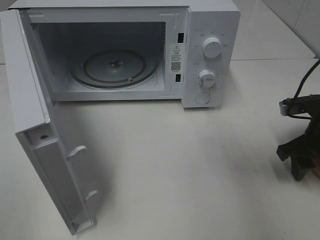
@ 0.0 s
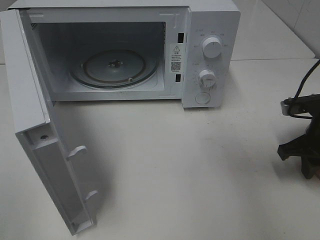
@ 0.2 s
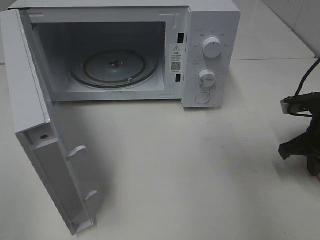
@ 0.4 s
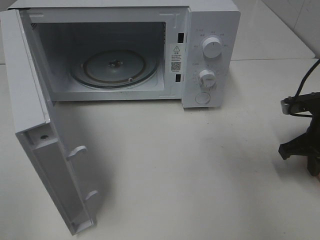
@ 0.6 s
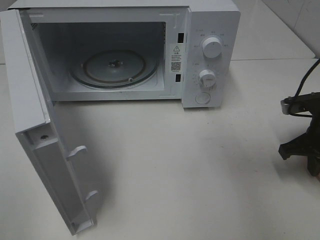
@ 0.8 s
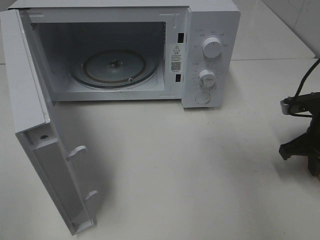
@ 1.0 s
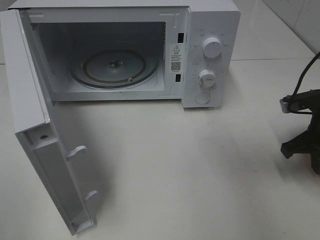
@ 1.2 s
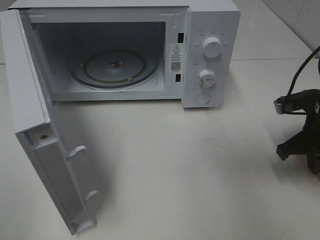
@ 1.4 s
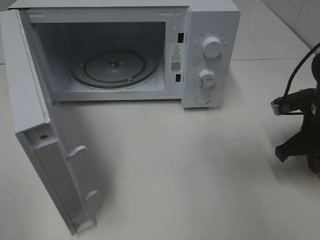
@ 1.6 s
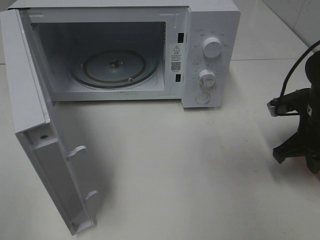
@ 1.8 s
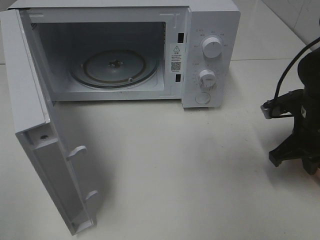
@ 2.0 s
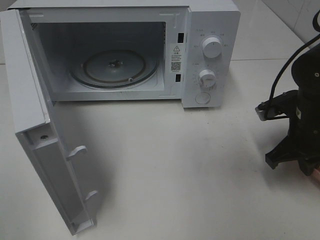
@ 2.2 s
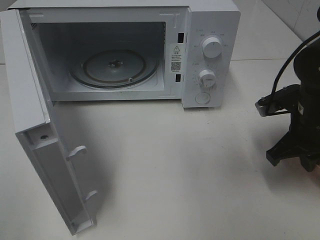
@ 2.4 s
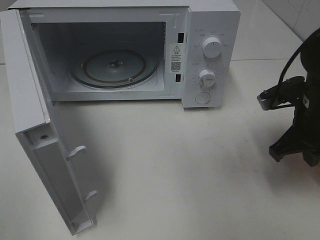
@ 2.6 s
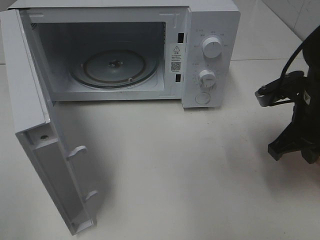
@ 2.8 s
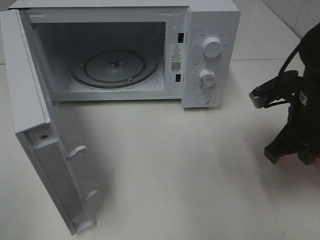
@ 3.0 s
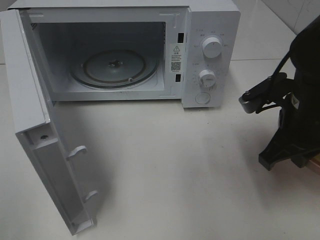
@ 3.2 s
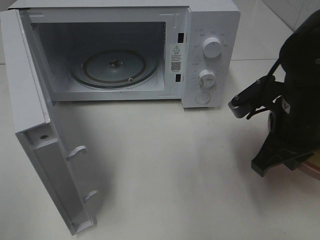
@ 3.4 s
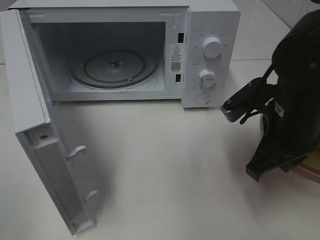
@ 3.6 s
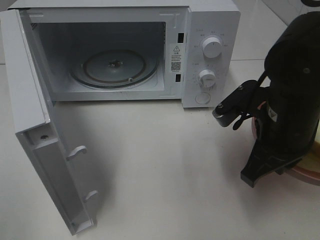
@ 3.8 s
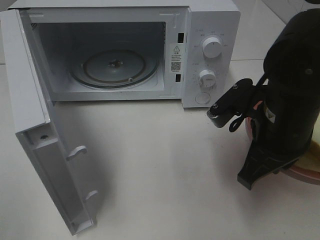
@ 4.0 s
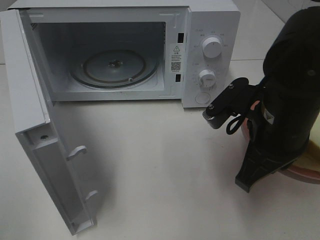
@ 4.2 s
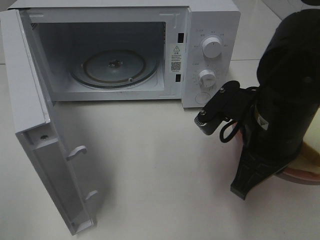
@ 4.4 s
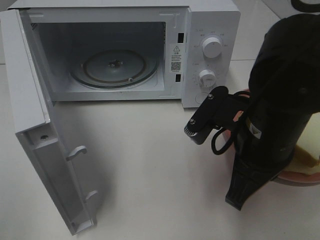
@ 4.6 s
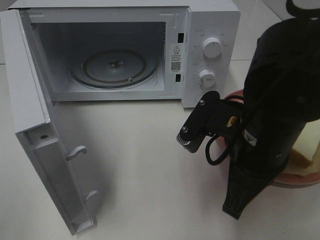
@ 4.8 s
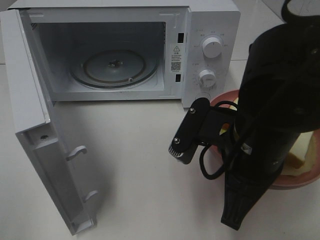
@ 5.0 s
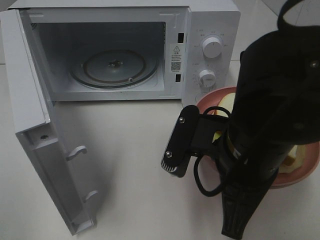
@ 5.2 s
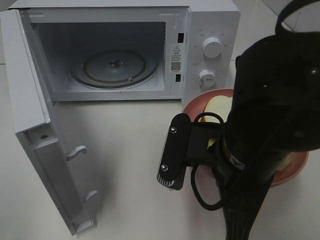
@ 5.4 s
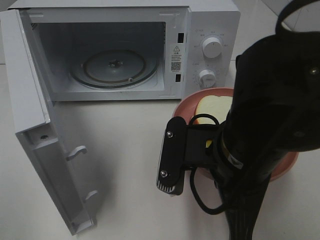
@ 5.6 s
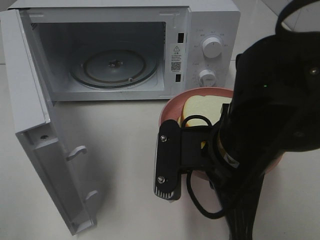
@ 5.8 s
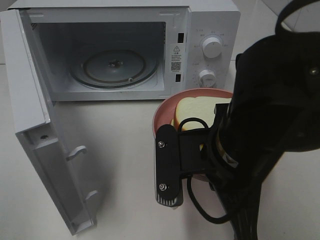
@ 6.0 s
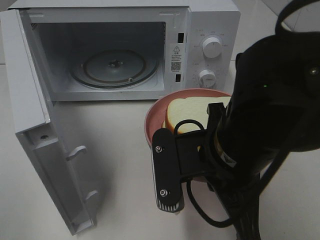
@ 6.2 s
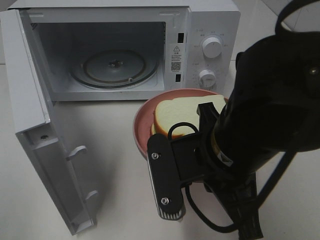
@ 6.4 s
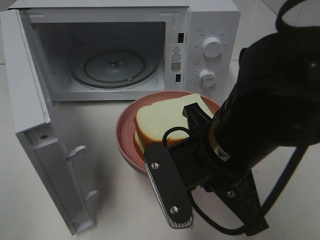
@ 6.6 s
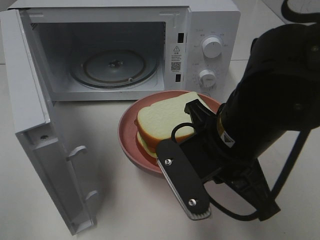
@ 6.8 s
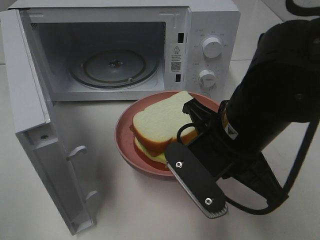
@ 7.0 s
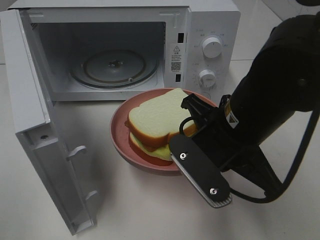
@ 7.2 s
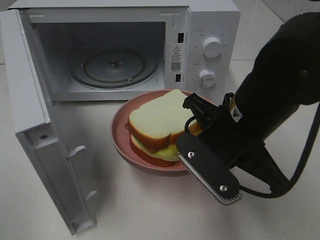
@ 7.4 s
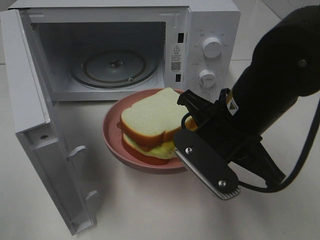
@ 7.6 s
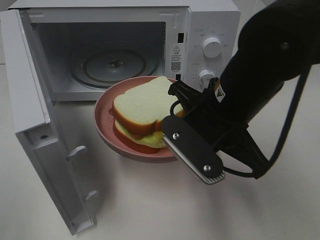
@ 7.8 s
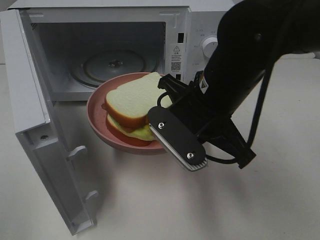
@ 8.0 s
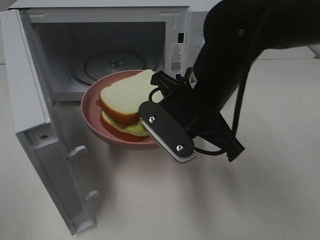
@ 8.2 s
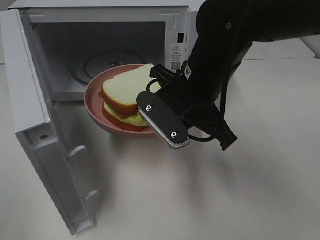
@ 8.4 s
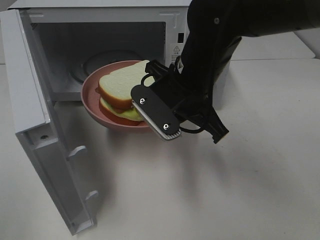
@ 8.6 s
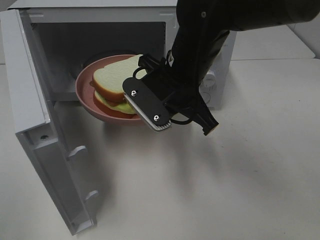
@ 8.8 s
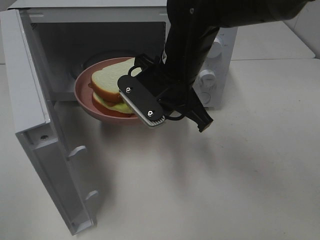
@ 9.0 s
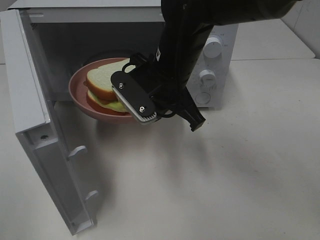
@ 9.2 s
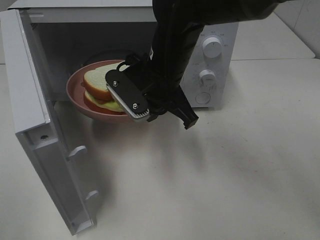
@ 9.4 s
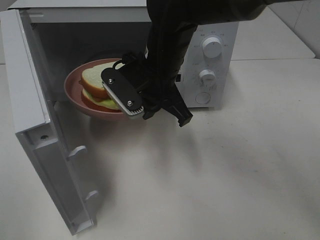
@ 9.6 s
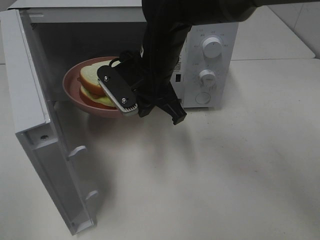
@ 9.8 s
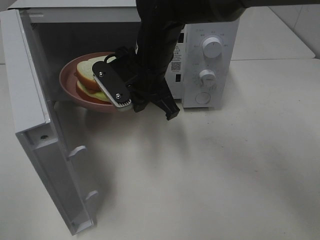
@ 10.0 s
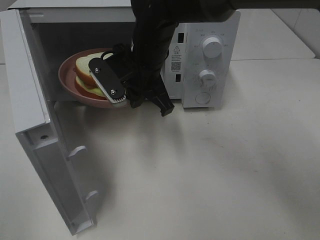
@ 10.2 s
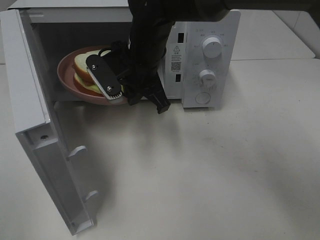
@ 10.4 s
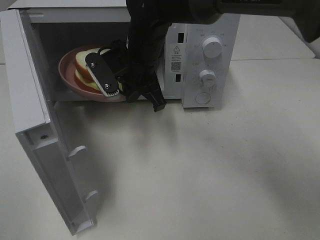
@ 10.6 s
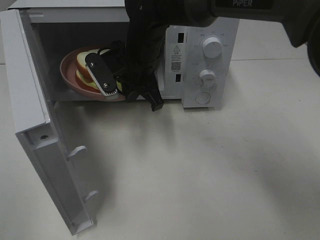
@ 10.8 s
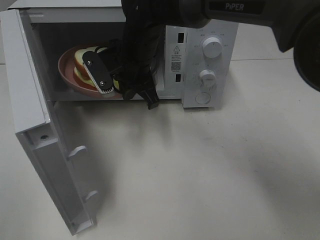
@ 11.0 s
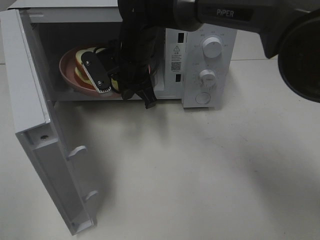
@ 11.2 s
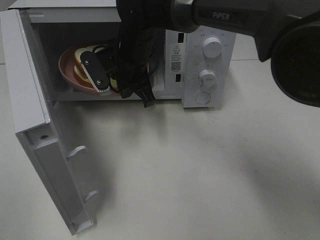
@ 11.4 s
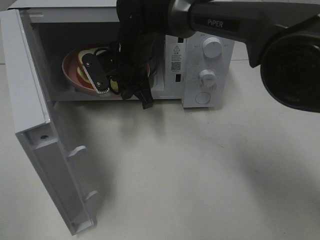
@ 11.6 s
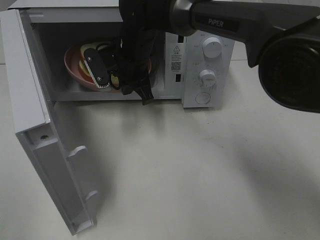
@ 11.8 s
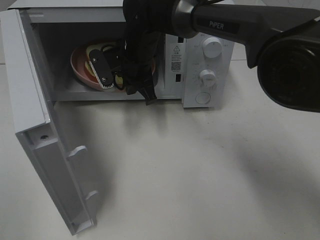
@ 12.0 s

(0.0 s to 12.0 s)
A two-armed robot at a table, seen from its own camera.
Task of the whole recording: Heat Sandwich.
0.0 s - 1.6 s: The right gripper closes up.
1.6 s - 3.0 s: The right gripper is displaced to the left and upward by some 10 cm.
3.0 s - 4.4 s: The right gripper travels to the left by roughly 10 cm.
4.4 s - 6.0 s: The right gripper travels to the left by approximately 5 cm.
6.0 s - 7.6 s: The right gripper heads forward, covering some 5 cm.
7.6 s - 9.0 s: The right gripper shifts some 10 cm forward and to the left.
9.0 s - 10.4 s: The right gripper heads forward and to the left, covering some 10 cm.
10.4 s - 12.0 s: The right gripper heads forward, covering about 5 cm.

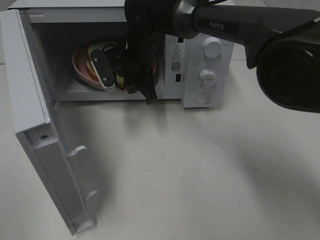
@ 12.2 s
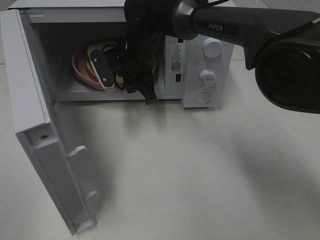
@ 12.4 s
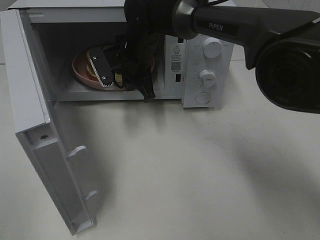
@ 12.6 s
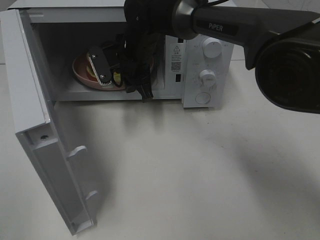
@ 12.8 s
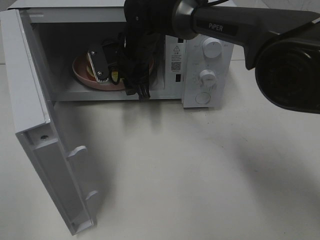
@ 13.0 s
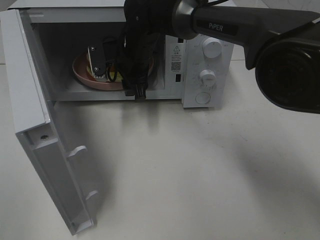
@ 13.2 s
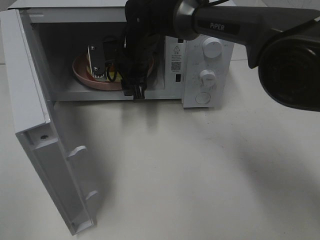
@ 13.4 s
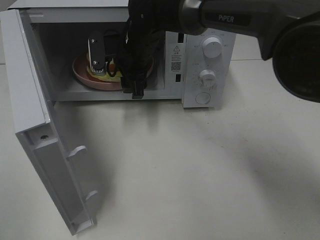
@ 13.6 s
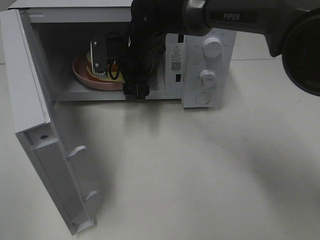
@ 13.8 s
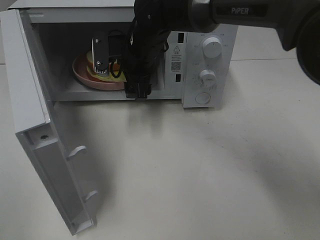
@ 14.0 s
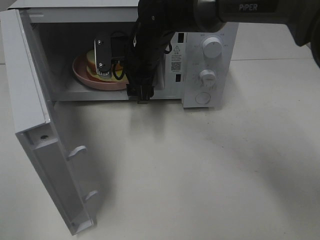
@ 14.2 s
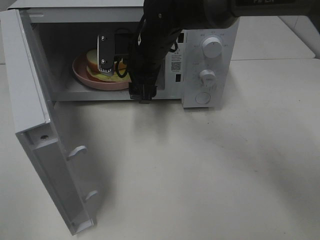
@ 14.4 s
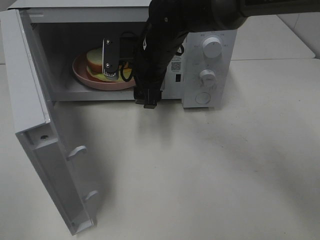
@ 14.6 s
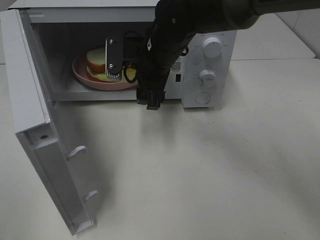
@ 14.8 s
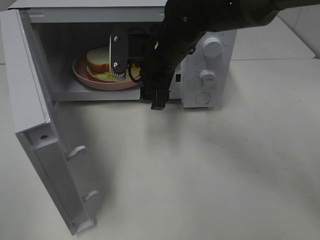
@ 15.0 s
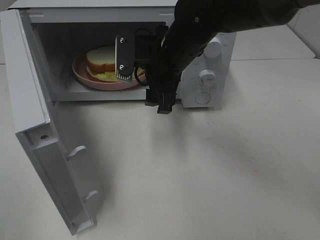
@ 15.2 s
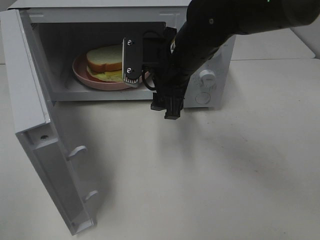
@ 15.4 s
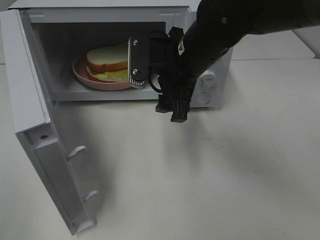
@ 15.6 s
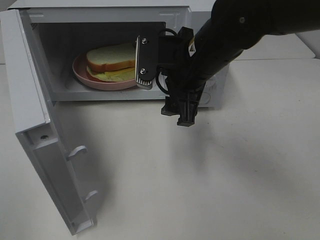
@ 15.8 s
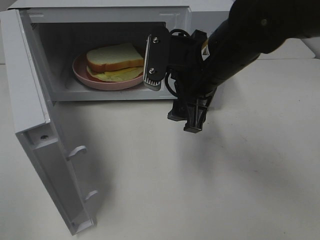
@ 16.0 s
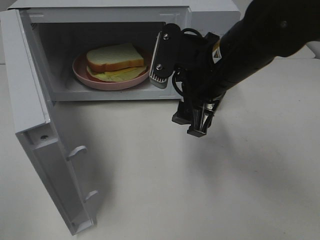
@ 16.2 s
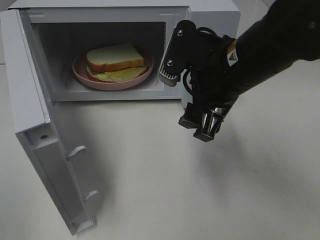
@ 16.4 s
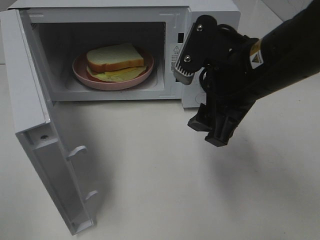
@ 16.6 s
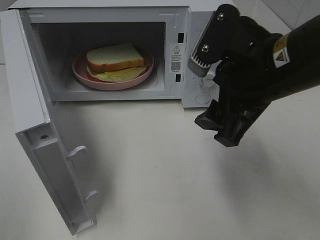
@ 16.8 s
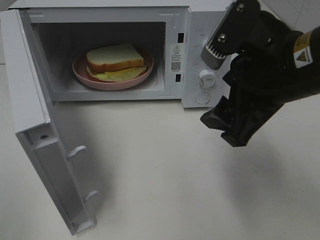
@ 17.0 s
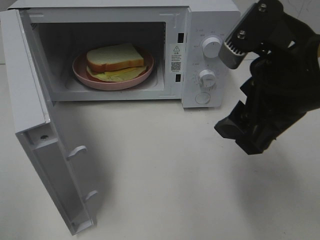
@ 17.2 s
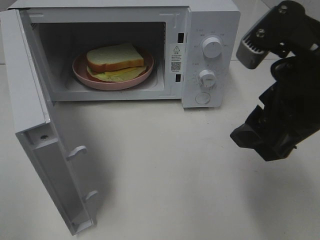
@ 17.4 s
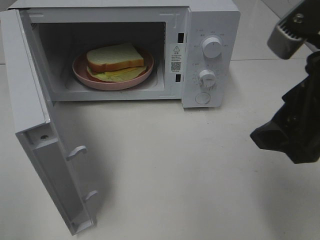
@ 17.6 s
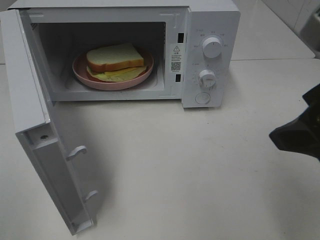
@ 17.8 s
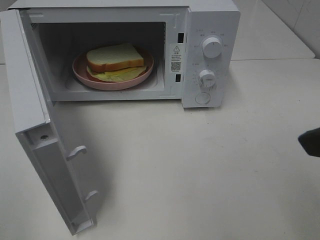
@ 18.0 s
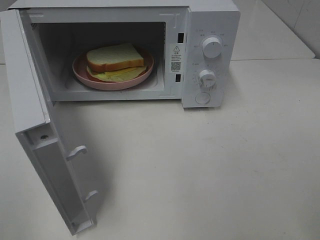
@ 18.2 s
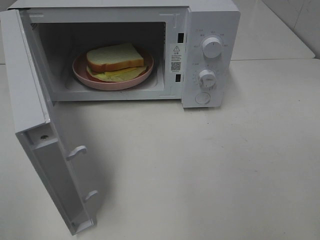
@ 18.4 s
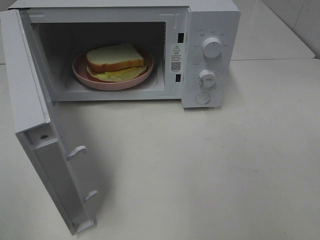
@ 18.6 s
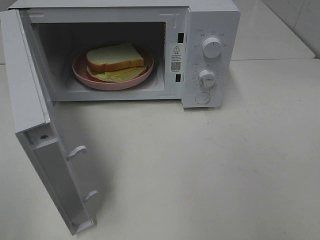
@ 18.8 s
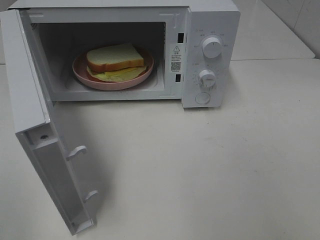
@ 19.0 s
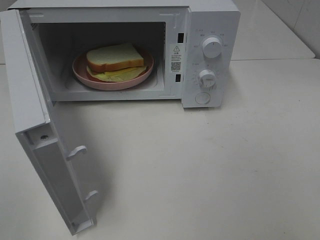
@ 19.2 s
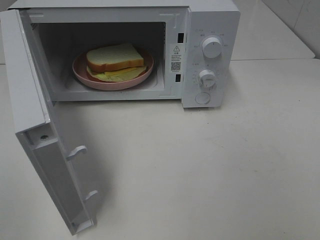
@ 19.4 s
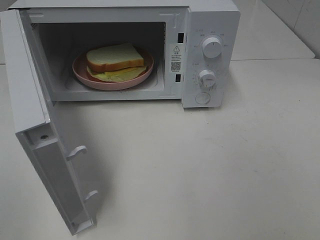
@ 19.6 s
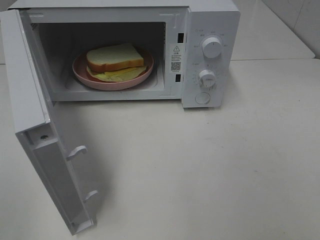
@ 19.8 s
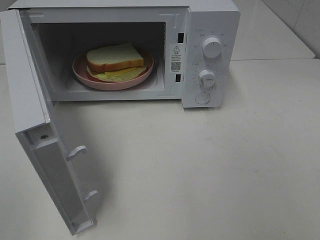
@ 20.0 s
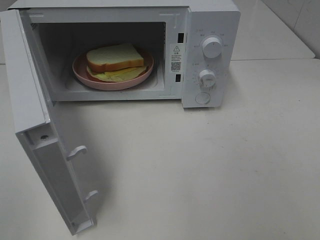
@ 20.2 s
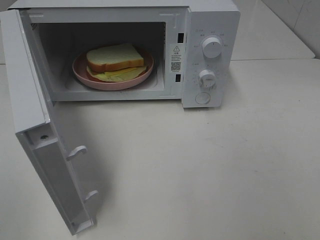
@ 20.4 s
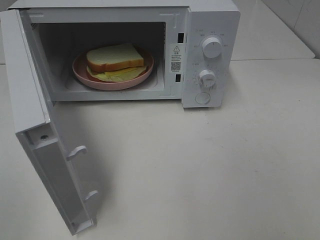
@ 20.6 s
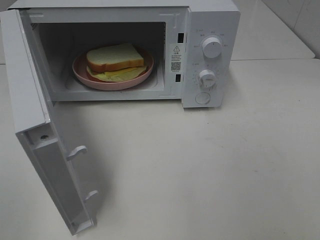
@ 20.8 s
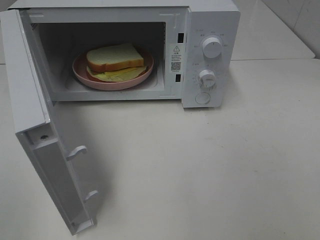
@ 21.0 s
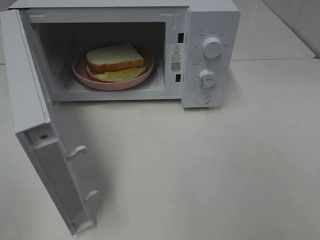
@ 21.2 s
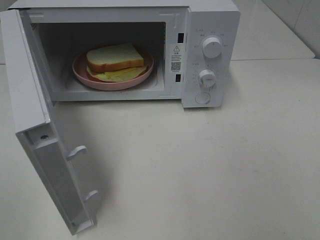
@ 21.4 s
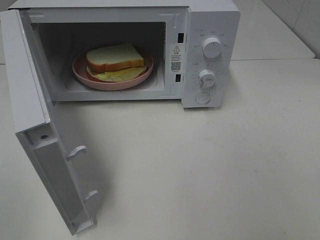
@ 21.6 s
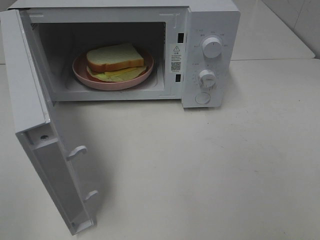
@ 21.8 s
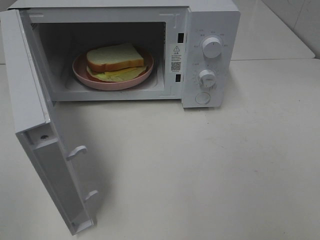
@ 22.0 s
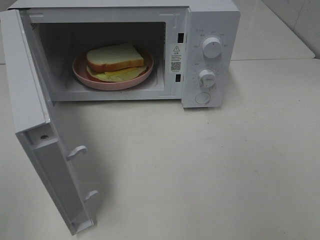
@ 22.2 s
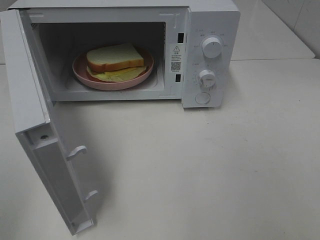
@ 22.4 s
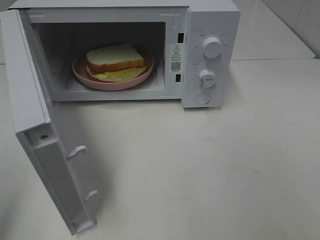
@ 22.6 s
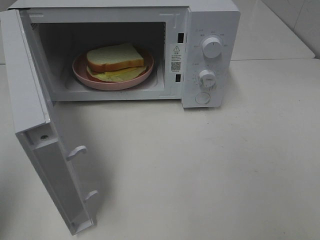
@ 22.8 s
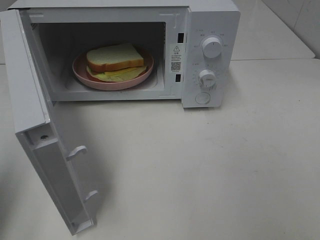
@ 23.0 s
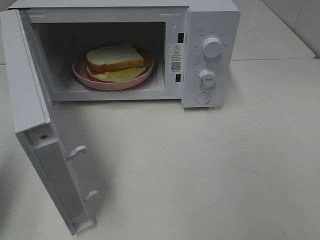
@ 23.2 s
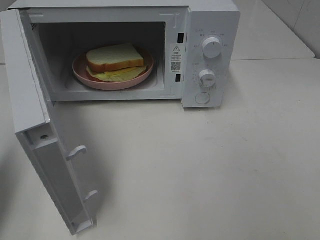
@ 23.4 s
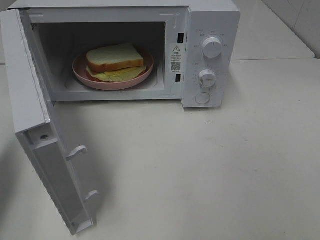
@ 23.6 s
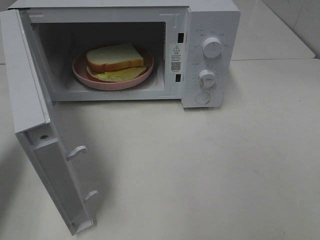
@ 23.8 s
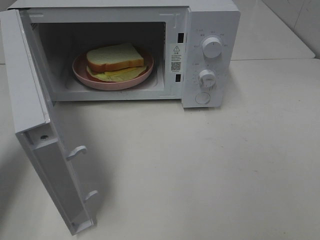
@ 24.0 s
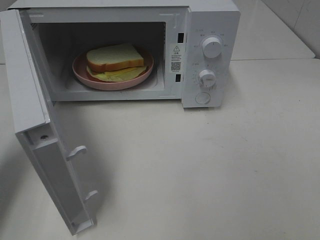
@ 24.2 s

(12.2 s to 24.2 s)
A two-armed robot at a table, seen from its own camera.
Task of the whole recording: Heat Sandwich.
Step, 12.2 s - 14.6 s: Right hand: place the plate in the microwave.
12.2 s - 13.8 s: The right gripper opens its fingers.
13.8 s - 15.2 s: The right gripper heads backward and to the right, covering roughly 10 cm.
15.2 s - 16.6 s: The right gripper is displaced backward and to the right by some 15 cm.
16.6 s - 18.2 s: The right gripper shifts roughly 20 cm backward, to the right and upward.
19.8 s - 21.2 s: Both grippers stay put.
22.6 s - 24.2 s: The left gripper is displaced forward and downward by approximately 20 cm, and closes.
